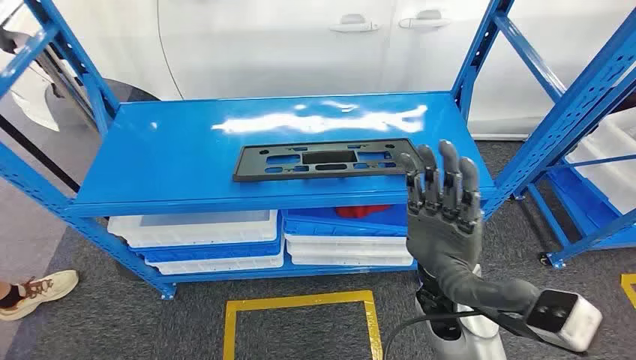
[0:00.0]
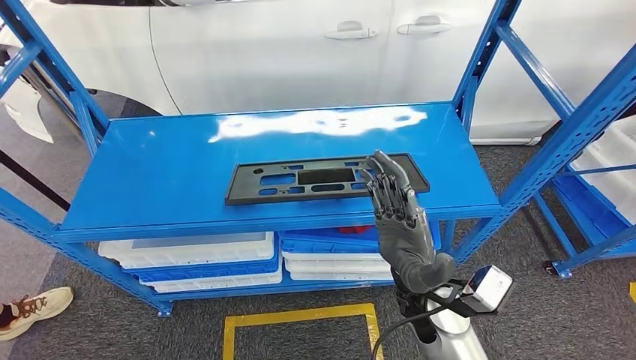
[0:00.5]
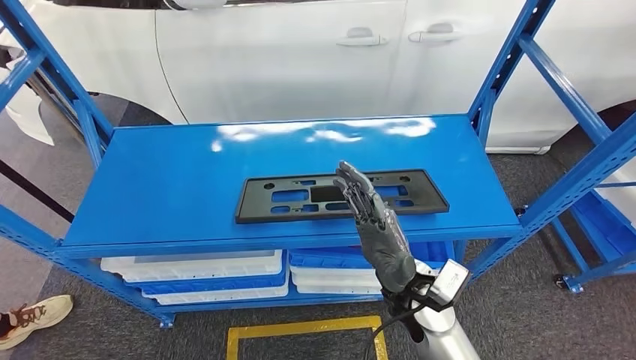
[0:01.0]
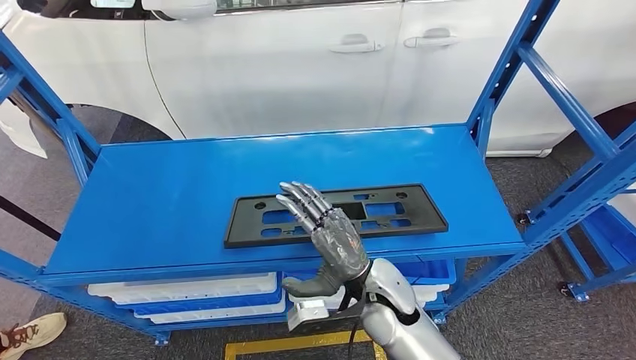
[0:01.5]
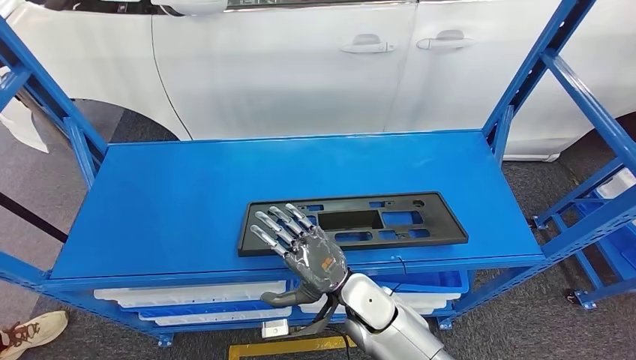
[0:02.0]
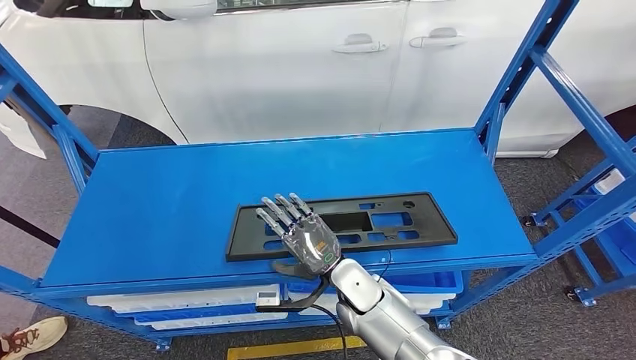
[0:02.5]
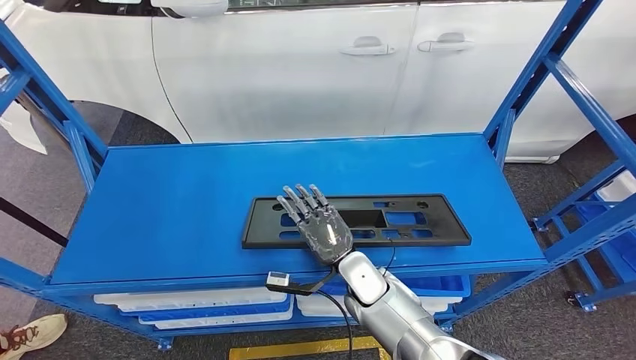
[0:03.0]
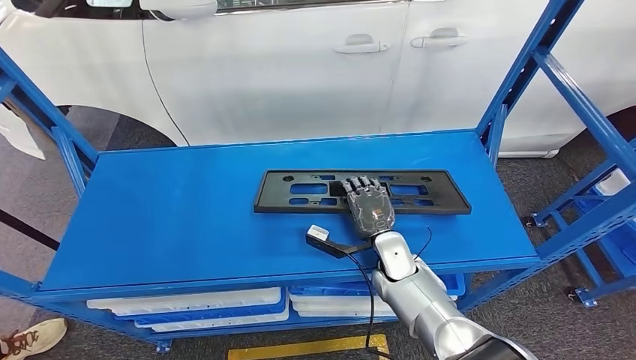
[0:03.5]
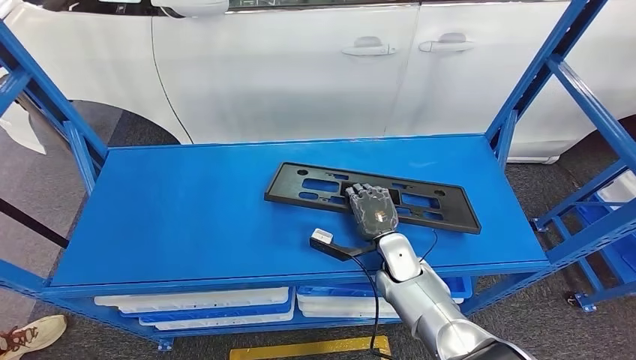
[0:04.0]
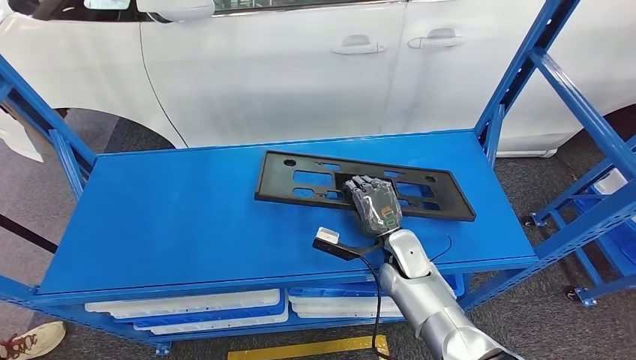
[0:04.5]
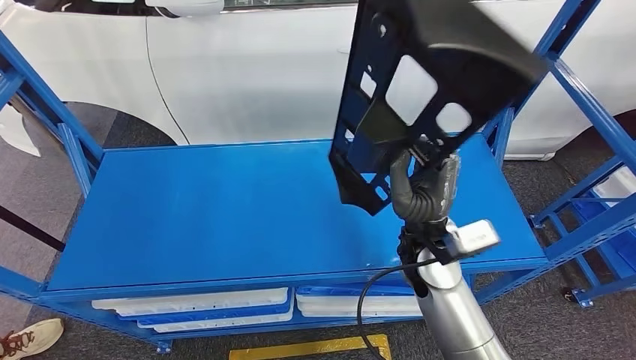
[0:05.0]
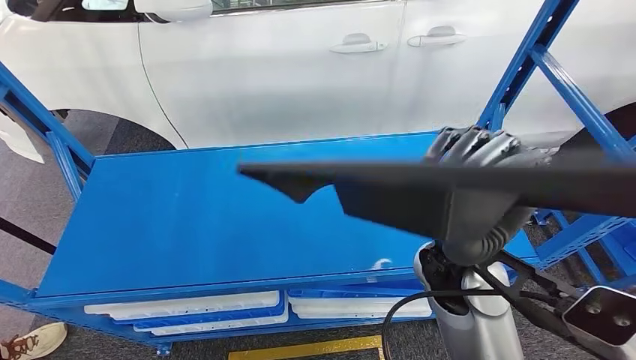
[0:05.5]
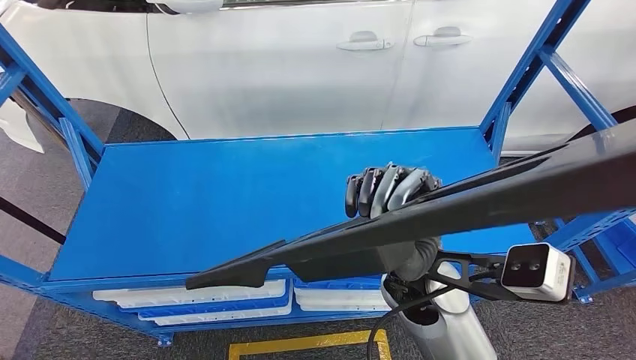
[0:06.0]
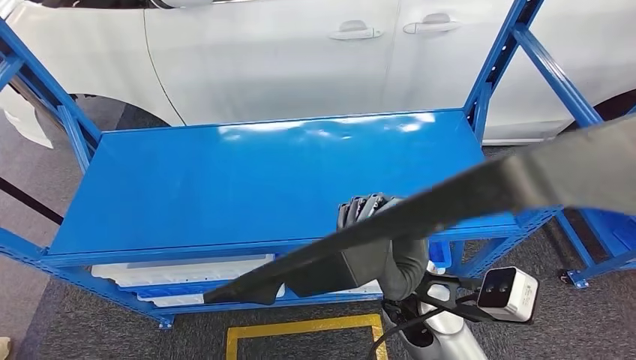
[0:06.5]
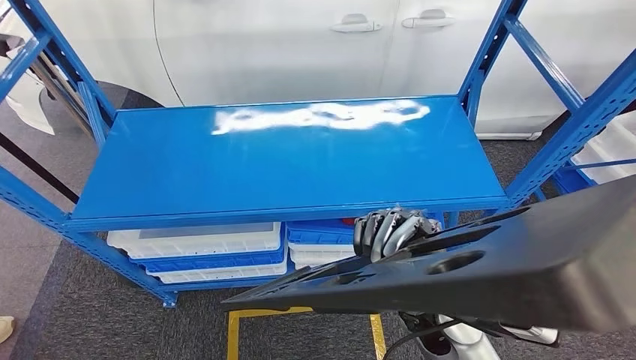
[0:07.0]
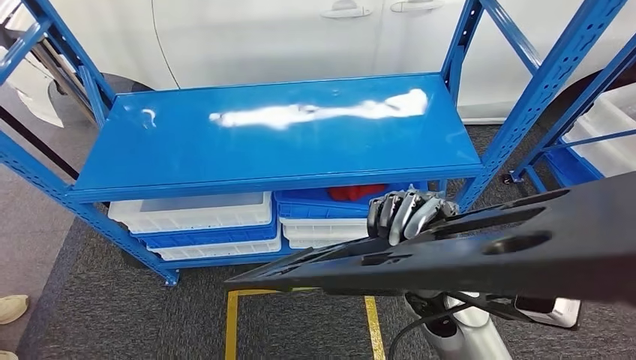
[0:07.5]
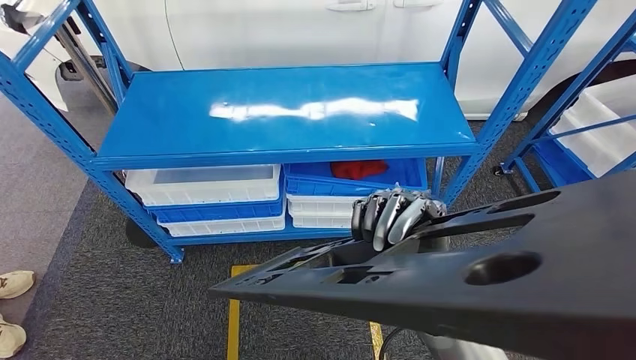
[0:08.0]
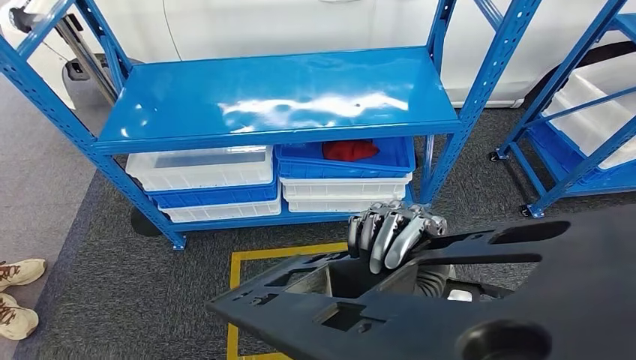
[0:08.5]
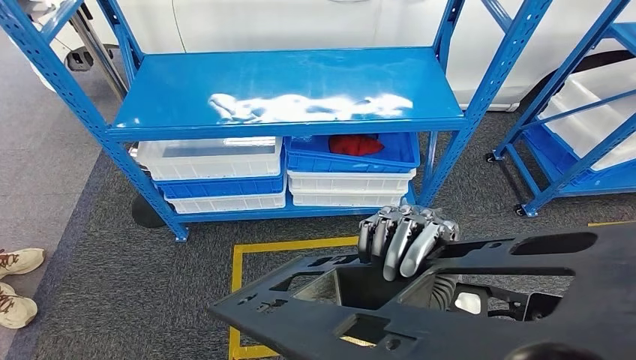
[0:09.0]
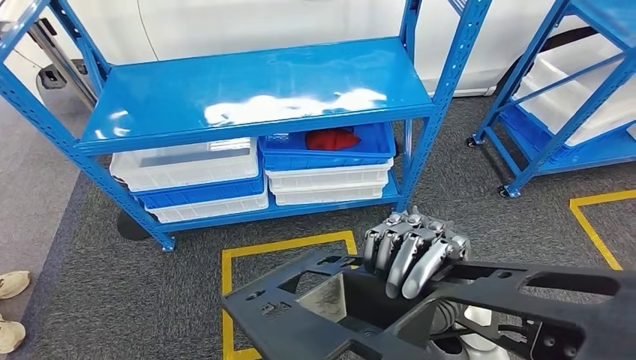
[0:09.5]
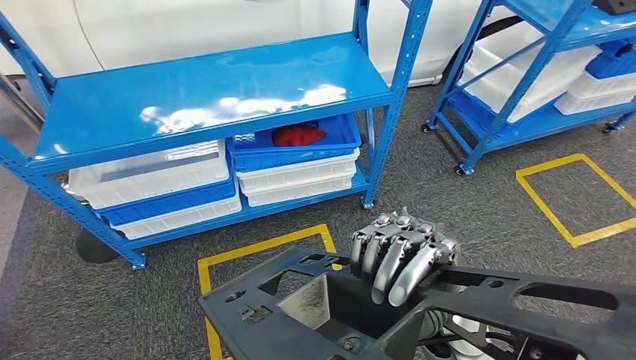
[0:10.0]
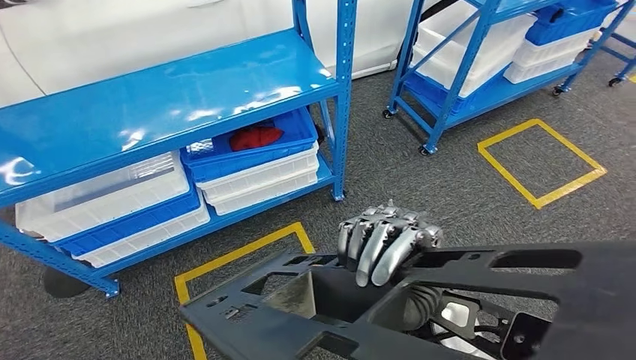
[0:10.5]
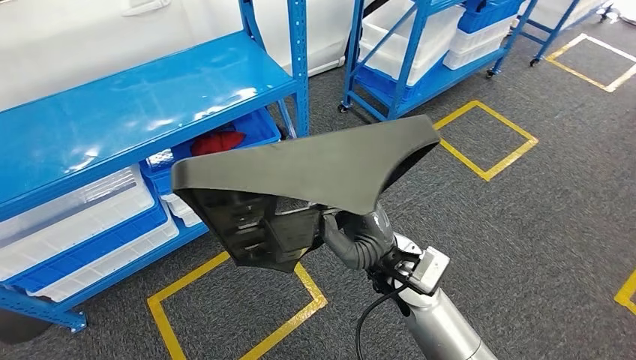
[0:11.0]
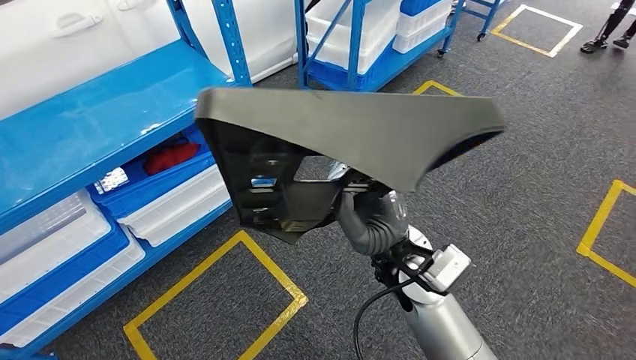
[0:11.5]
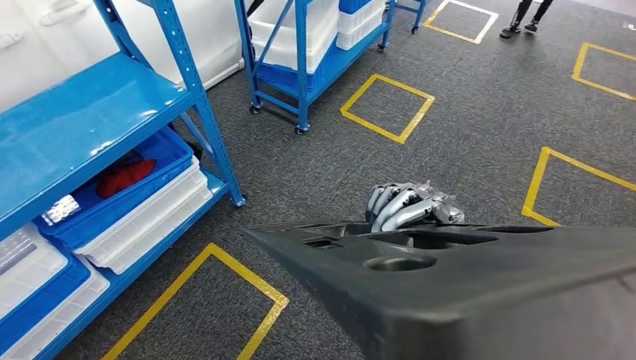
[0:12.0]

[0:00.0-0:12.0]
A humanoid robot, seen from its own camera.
Step, 0:00.0 to 0:06.5: Pick up the large material from the shelf.

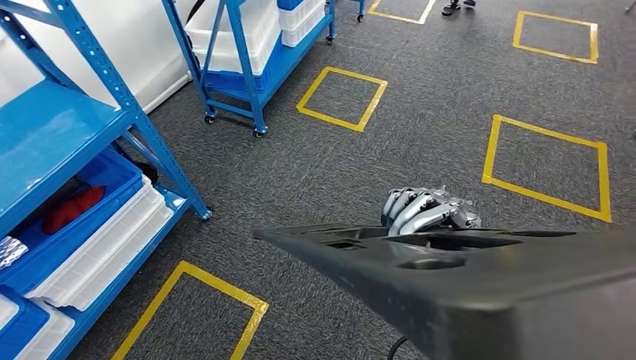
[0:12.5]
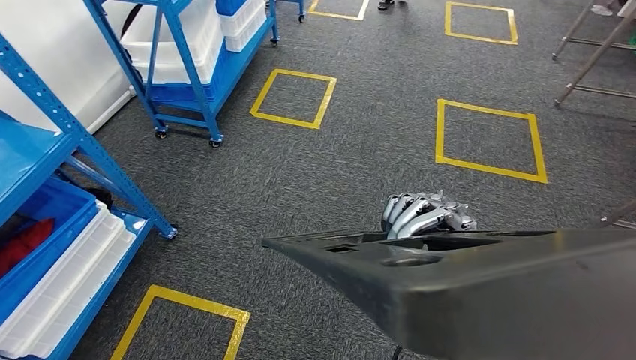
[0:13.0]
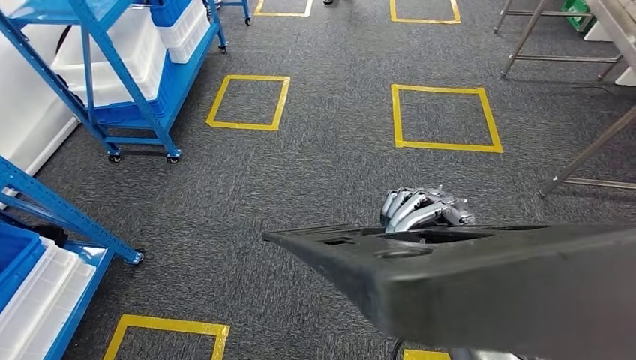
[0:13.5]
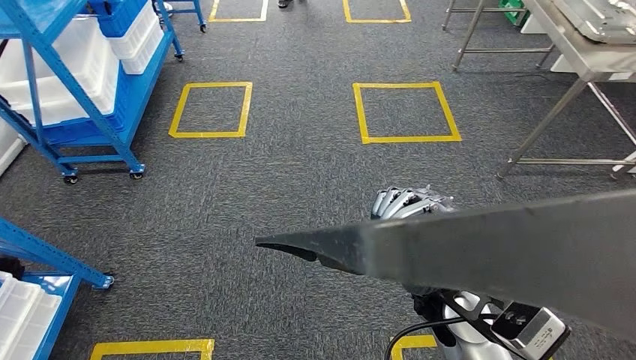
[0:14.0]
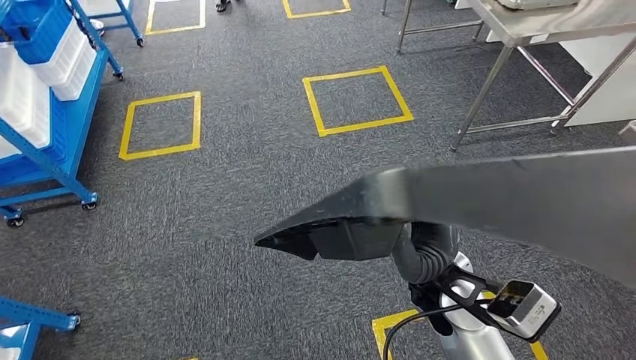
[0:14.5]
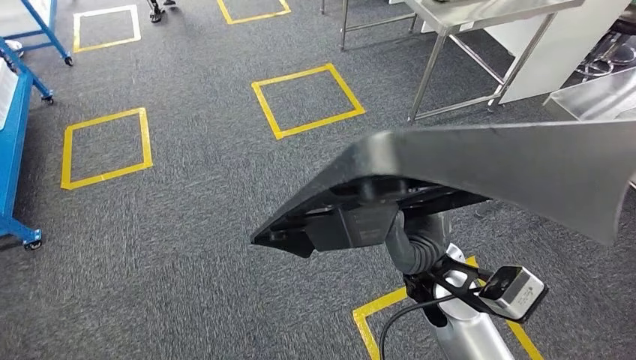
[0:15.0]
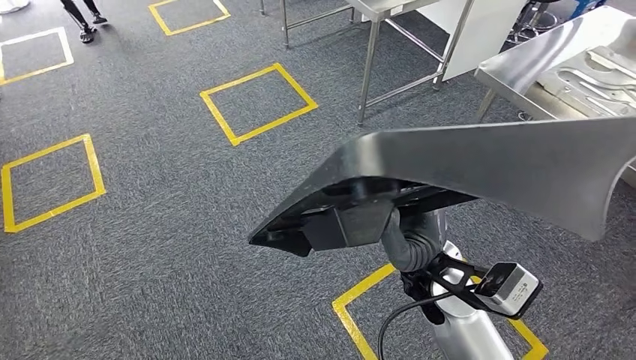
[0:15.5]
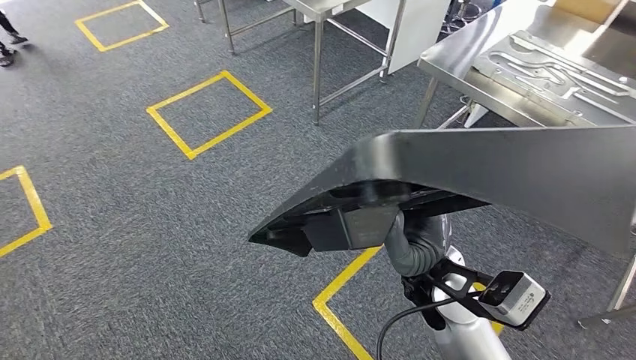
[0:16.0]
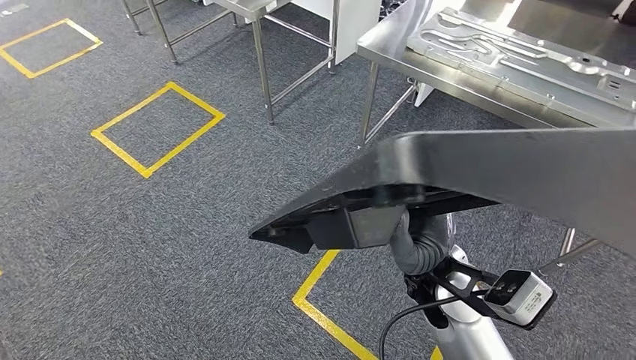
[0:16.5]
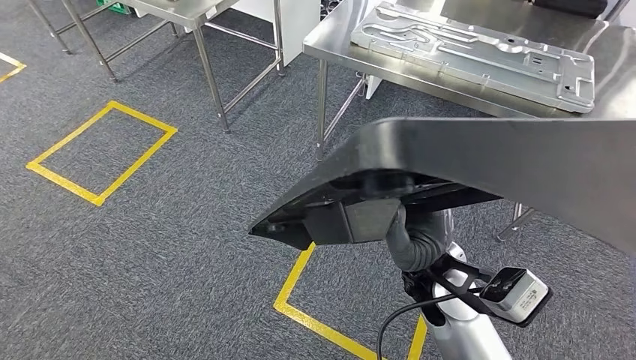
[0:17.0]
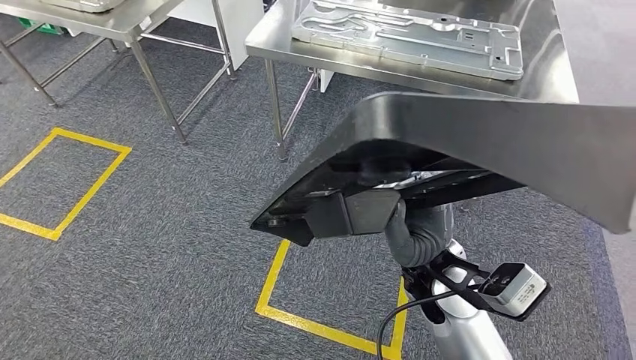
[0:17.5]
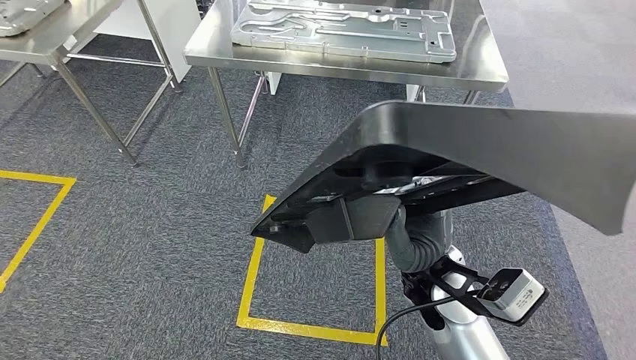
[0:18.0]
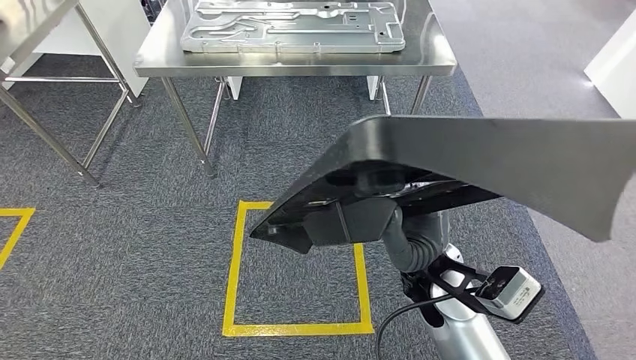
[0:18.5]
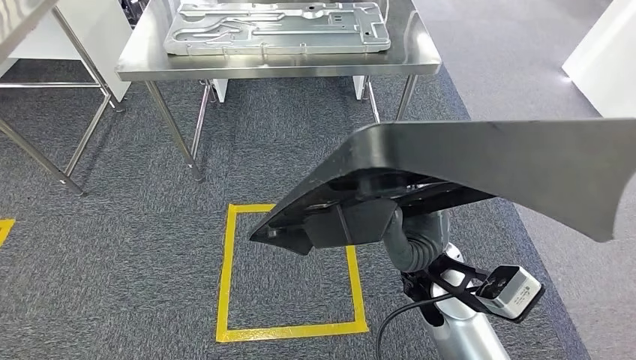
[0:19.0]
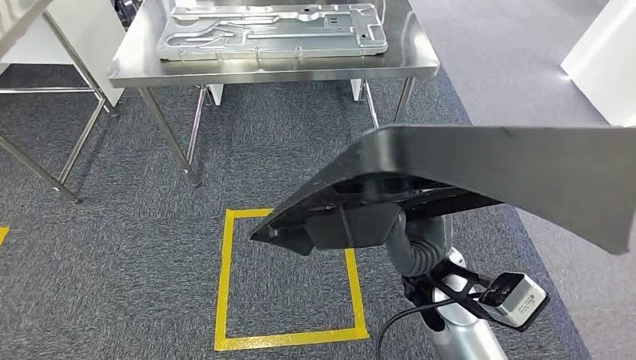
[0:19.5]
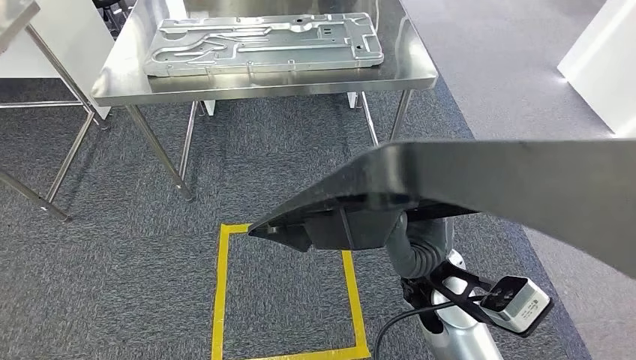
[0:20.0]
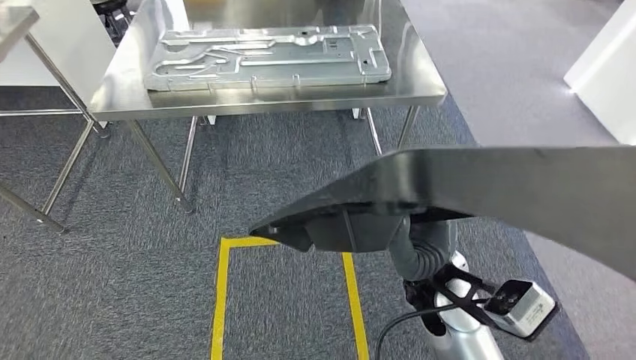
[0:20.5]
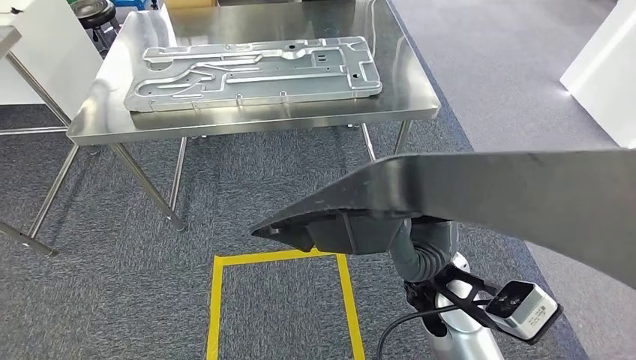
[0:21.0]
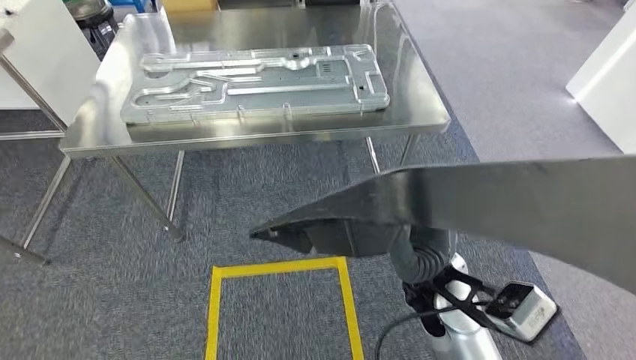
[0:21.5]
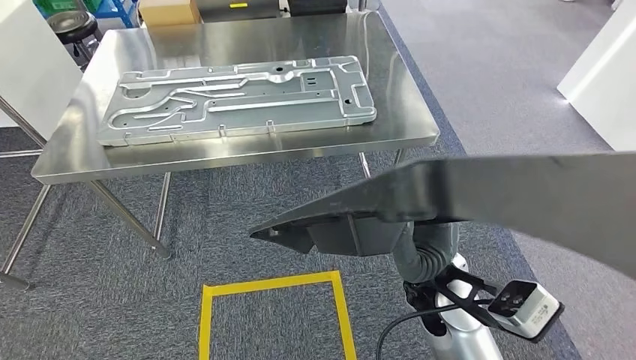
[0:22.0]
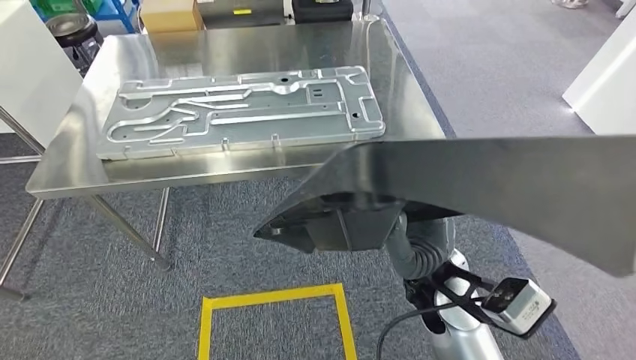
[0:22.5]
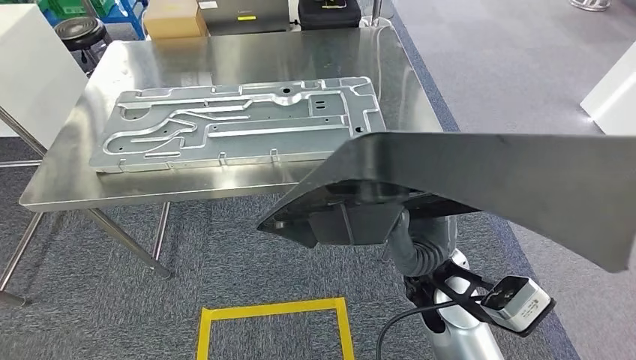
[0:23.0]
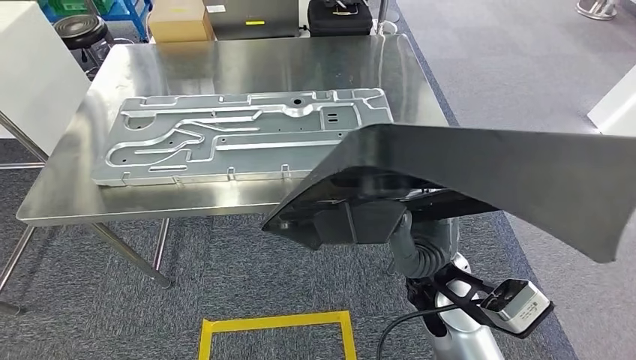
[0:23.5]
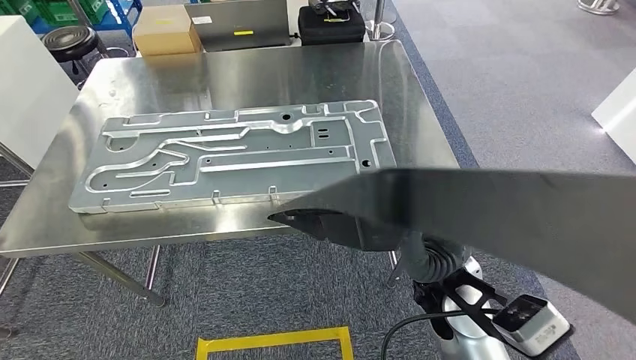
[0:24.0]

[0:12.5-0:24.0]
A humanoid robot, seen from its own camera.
Step, 0:12.5 to 0:23.0: Move the large material to the workbench.
